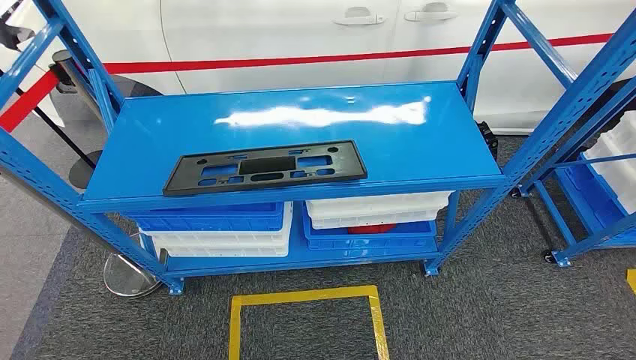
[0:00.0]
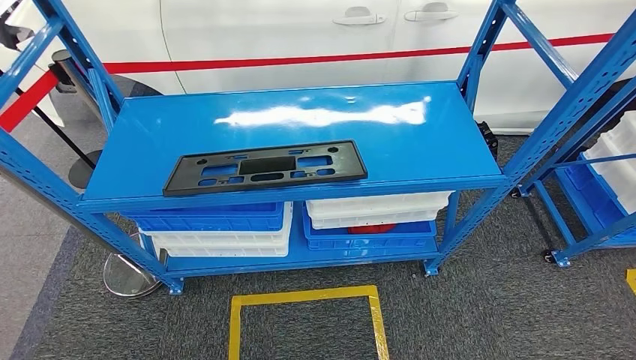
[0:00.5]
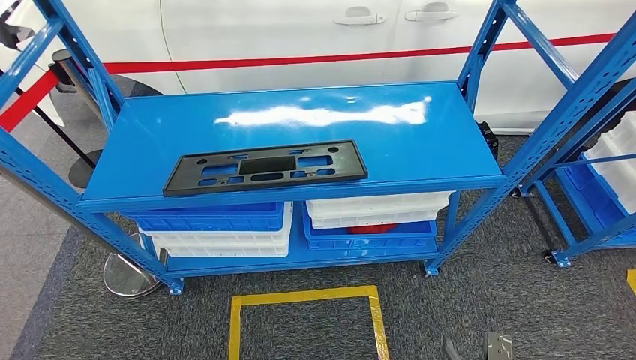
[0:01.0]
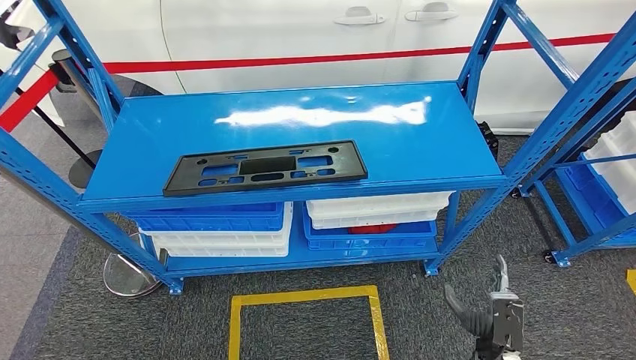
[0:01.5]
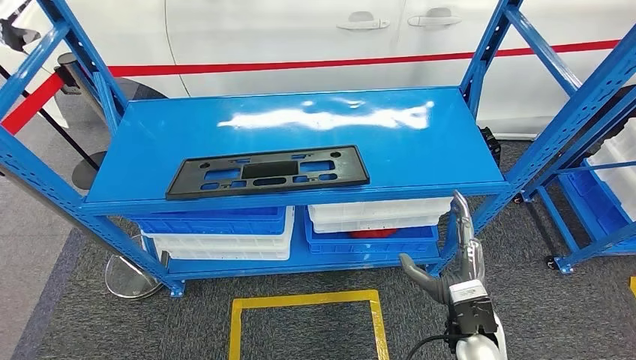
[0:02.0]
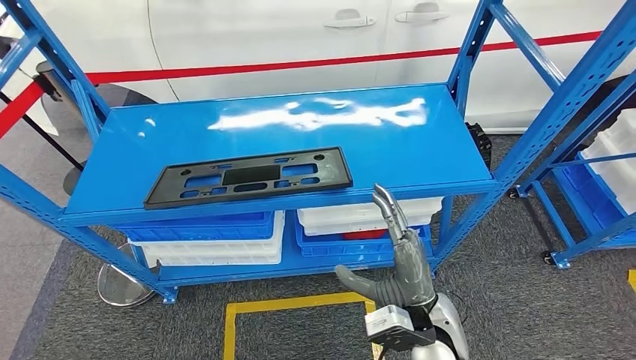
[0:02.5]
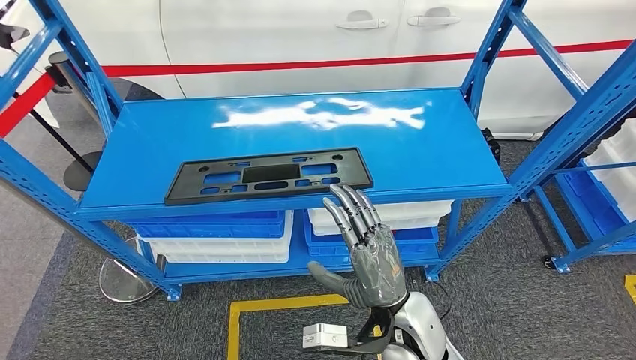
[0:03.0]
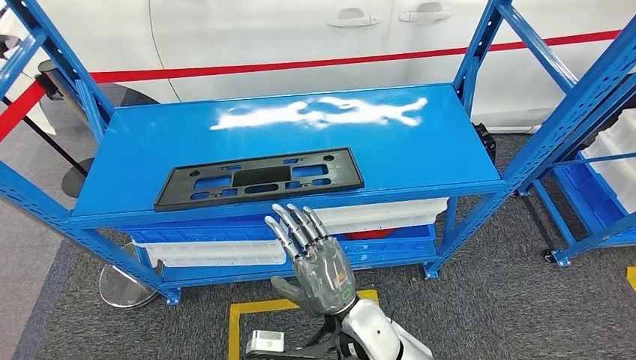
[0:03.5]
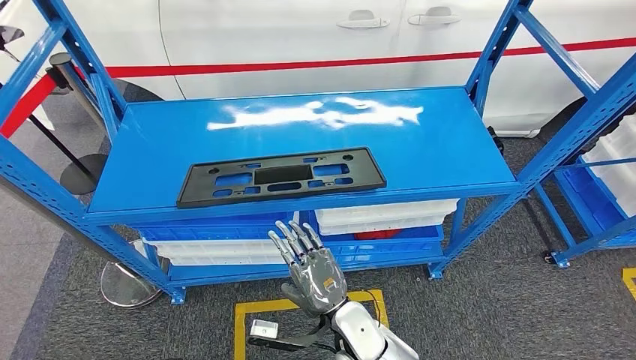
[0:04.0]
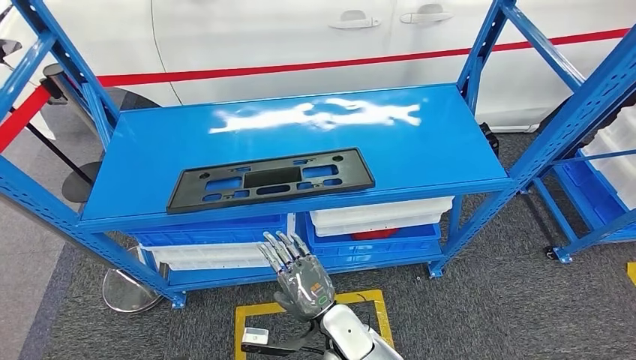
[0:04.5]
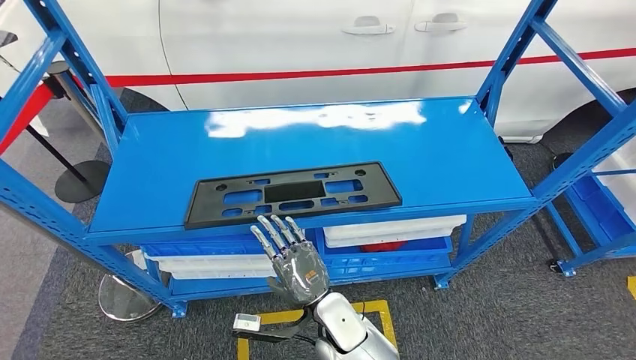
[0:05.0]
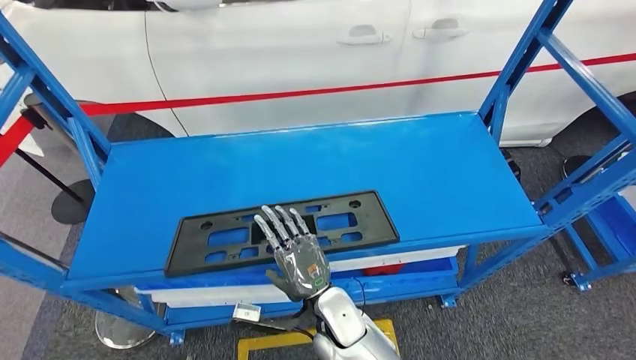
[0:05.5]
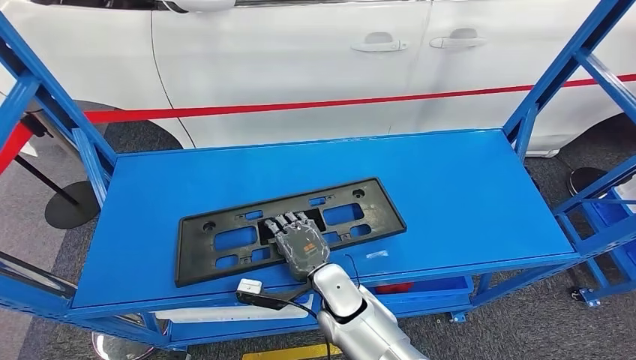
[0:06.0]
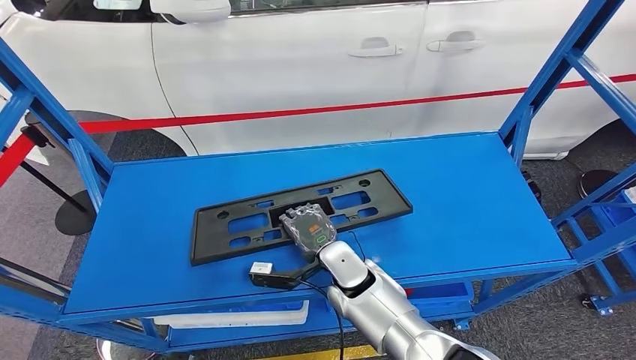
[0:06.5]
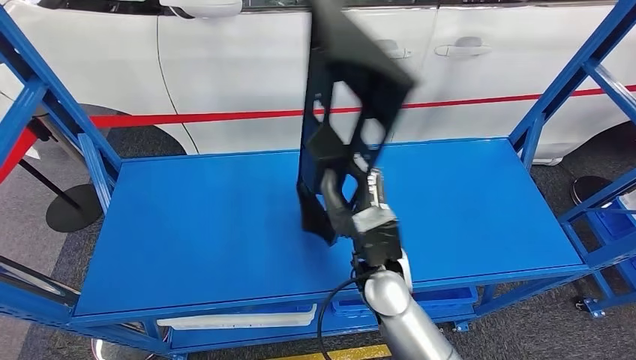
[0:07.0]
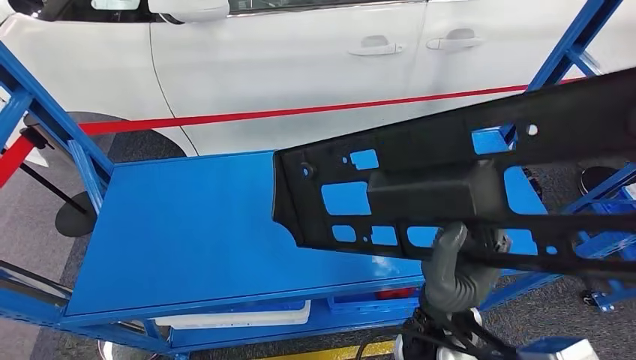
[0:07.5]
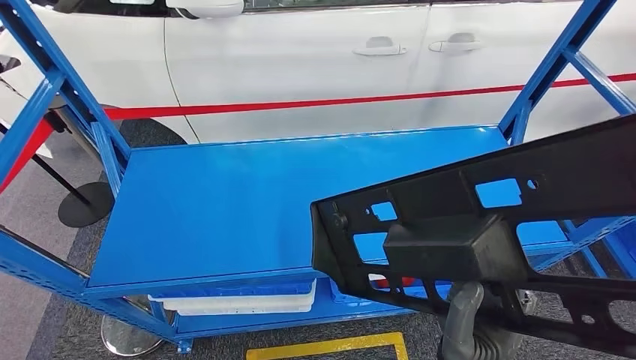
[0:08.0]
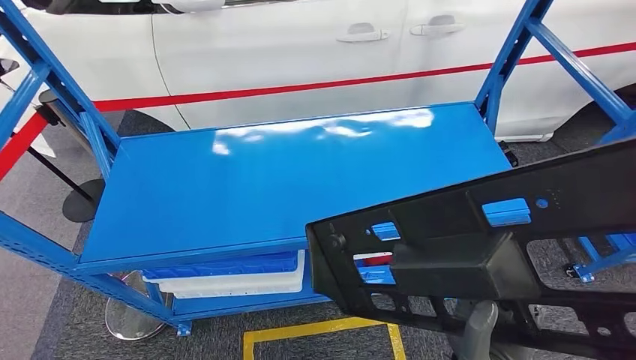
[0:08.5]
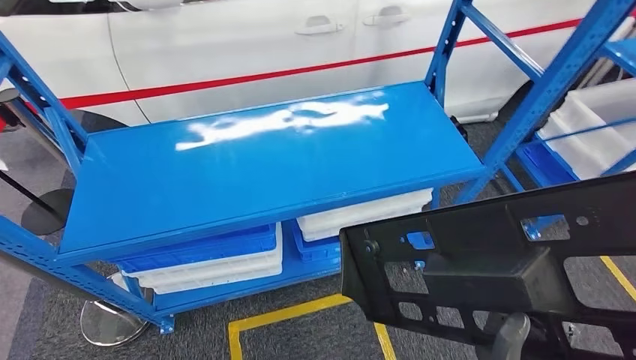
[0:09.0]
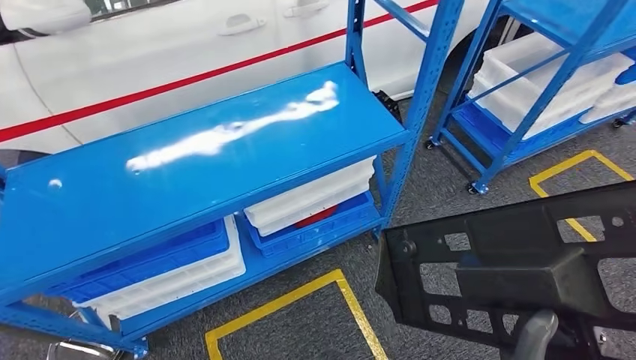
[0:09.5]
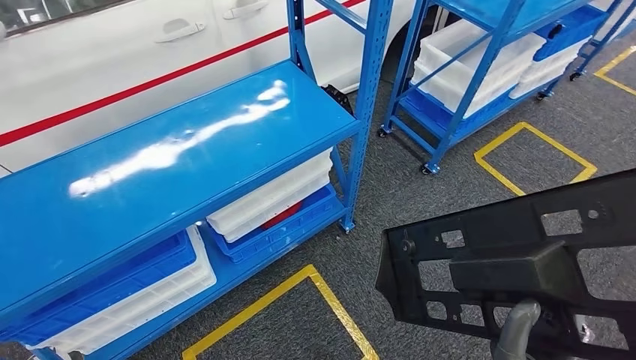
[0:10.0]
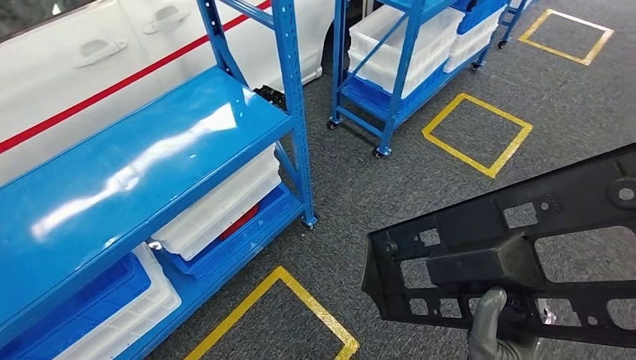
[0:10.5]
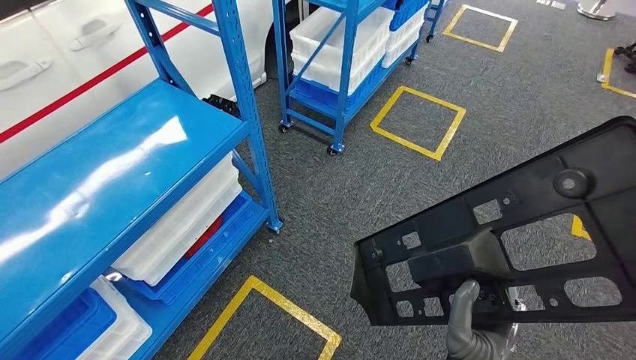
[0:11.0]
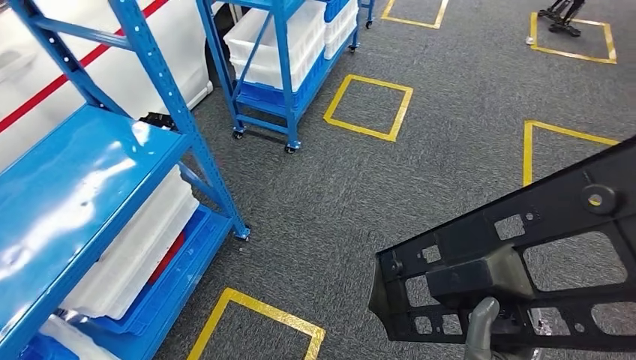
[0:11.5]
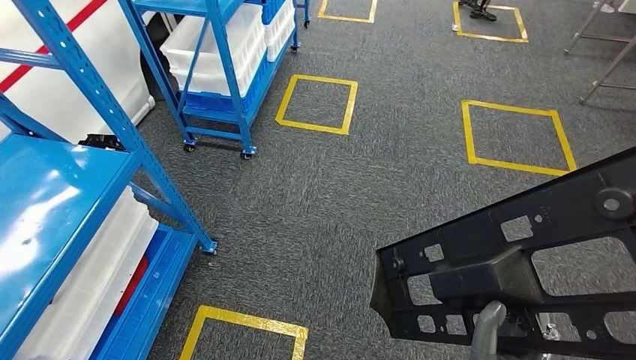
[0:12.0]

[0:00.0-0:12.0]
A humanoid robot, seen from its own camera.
Step, 0:00.0 to 0:07.5: Pick up the large material from the shelf.

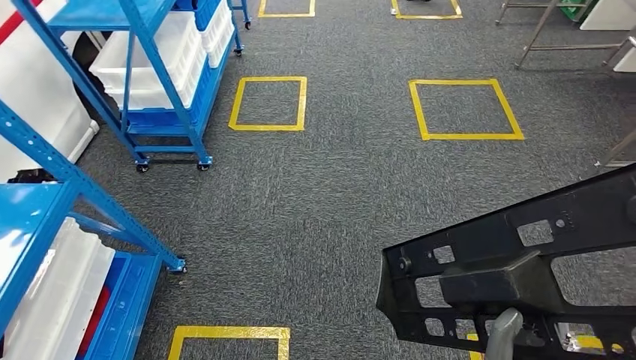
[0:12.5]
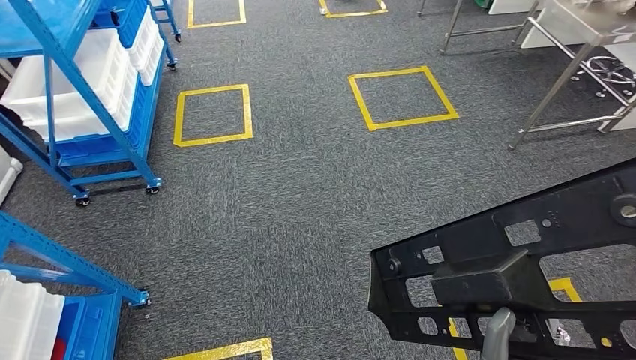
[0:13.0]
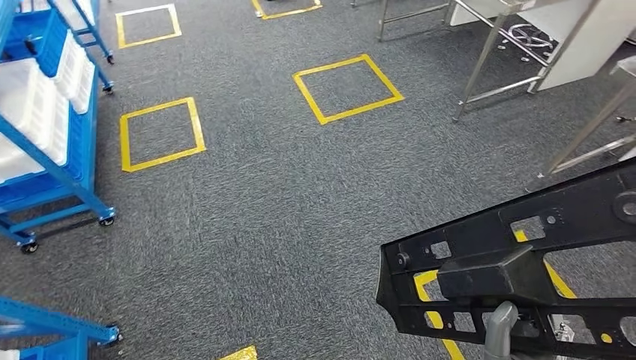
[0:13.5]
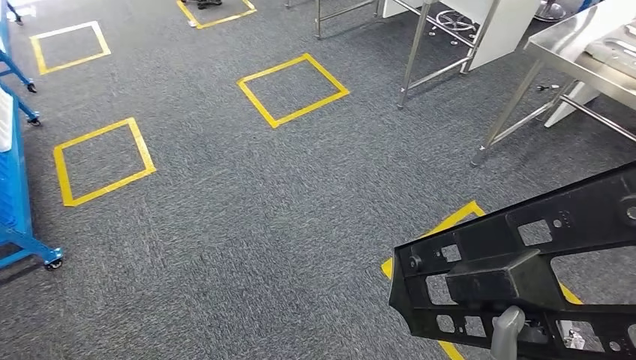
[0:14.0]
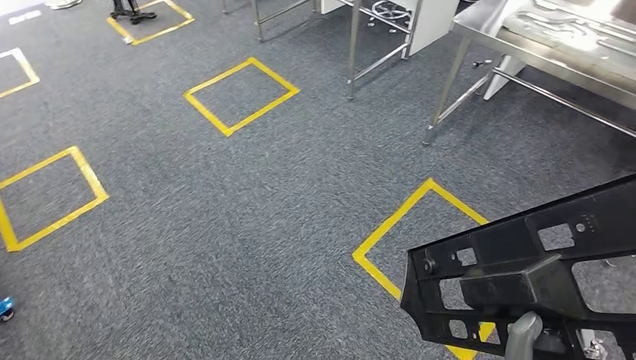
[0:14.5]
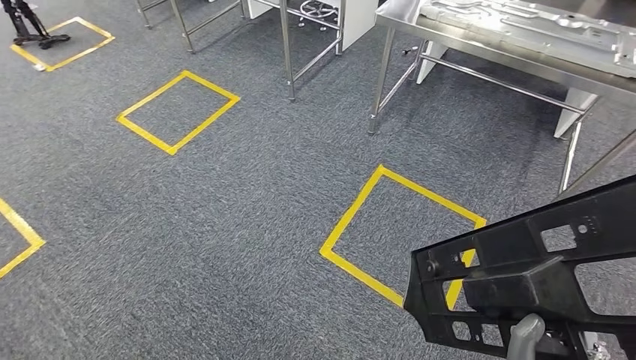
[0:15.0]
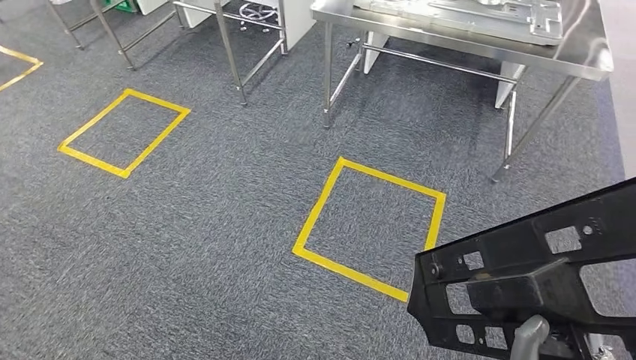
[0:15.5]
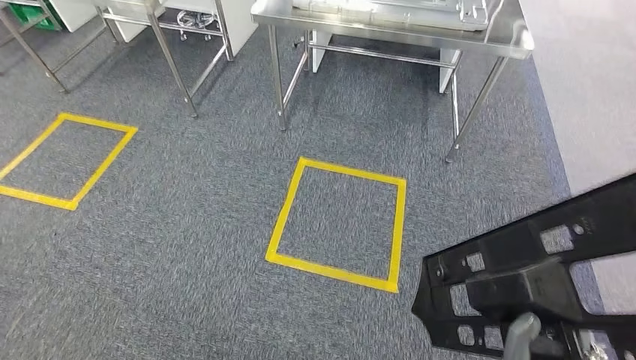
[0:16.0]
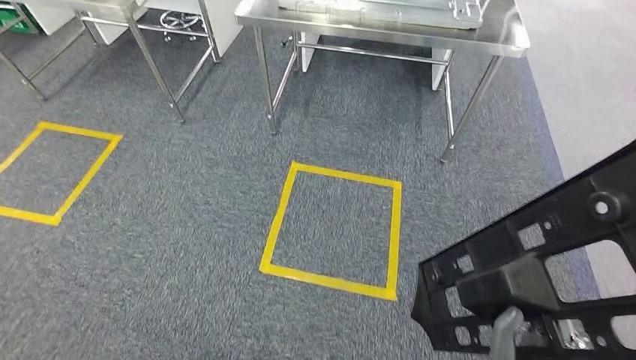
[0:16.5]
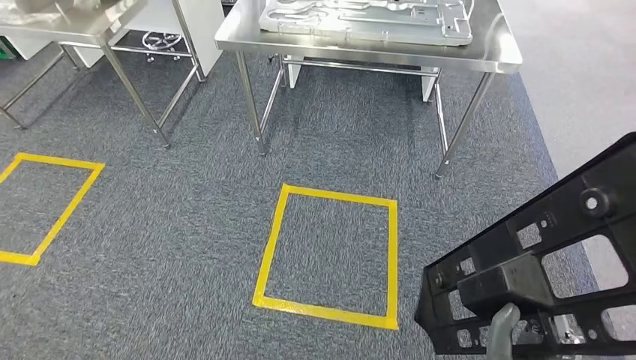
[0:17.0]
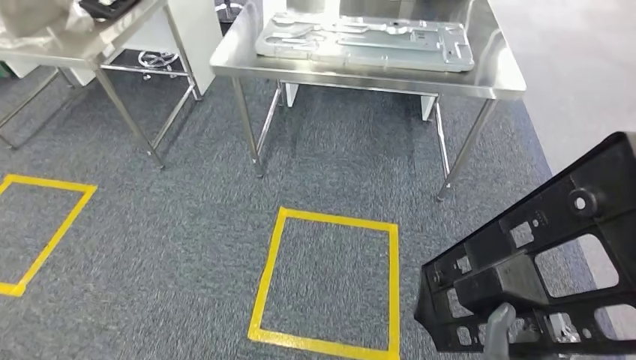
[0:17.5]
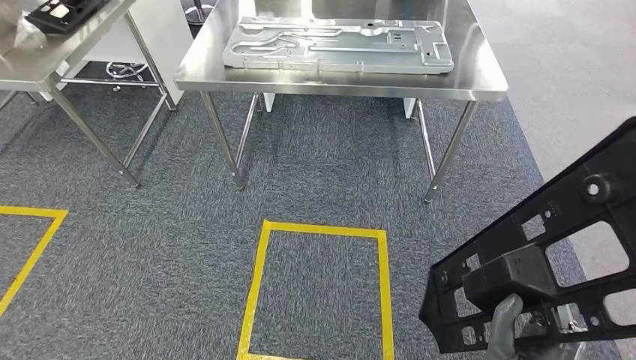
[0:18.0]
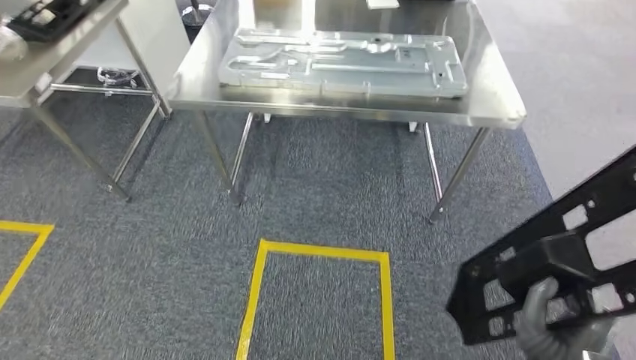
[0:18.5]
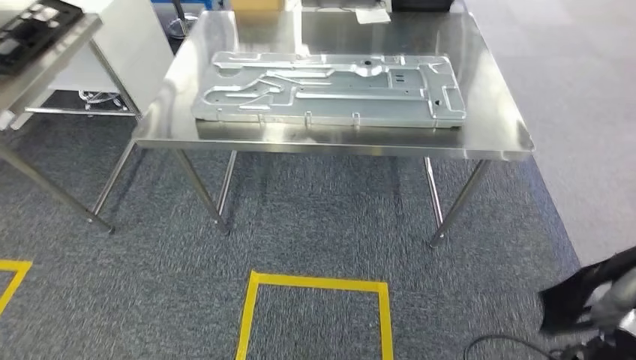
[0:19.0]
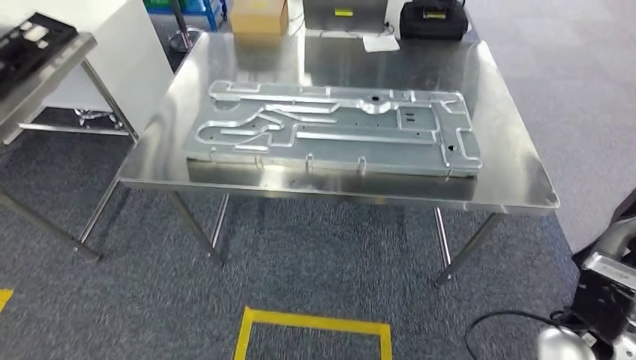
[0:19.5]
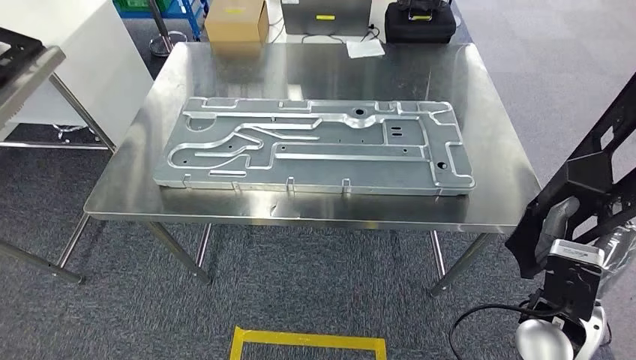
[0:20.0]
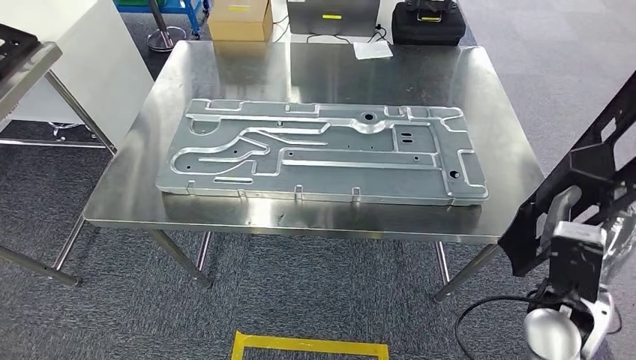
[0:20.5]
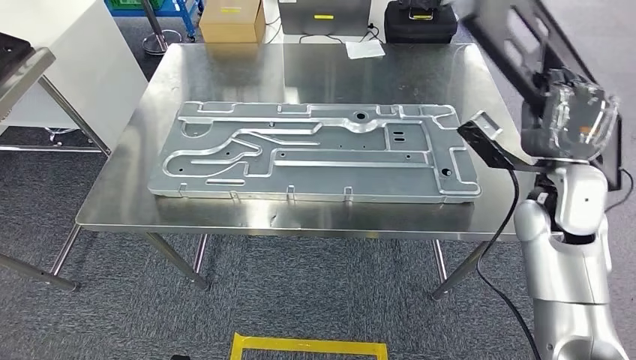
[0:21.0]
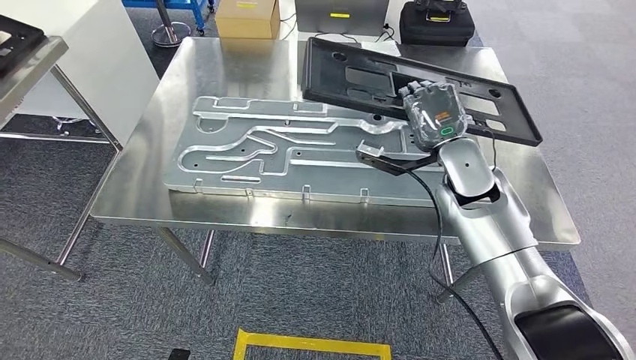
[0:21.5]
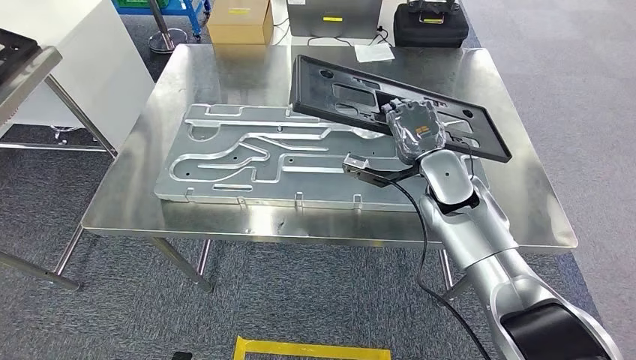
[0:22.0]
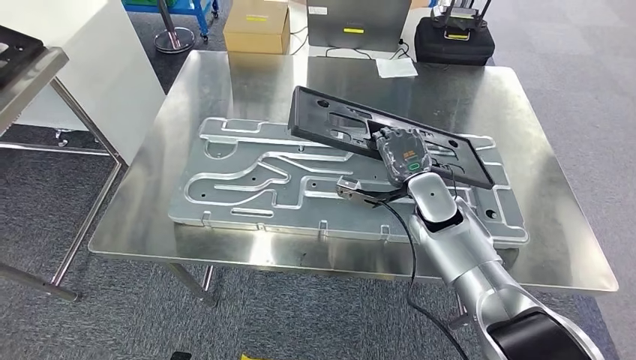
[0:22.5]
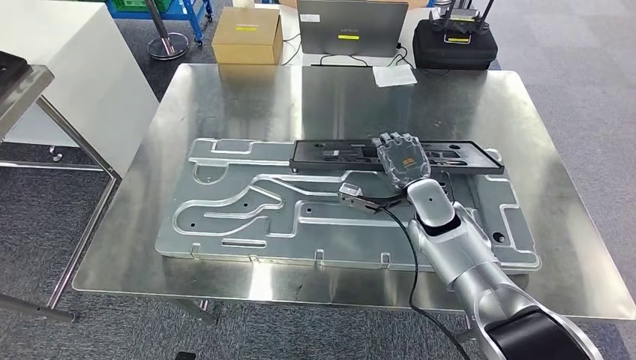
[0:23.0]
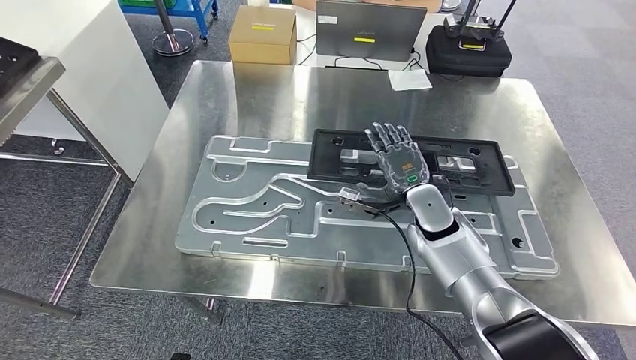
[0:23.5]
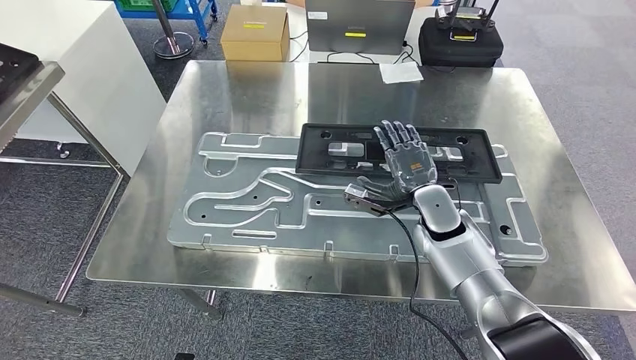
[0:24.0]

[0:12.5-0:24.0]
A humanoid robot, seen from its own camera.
Step, 0:12.5 to 0:21.0: Move the large material to the workbench.
